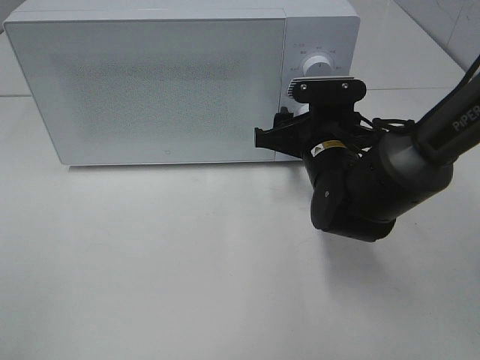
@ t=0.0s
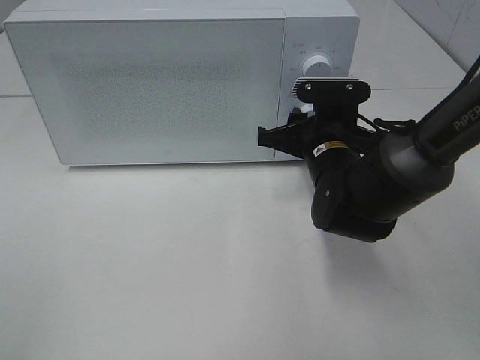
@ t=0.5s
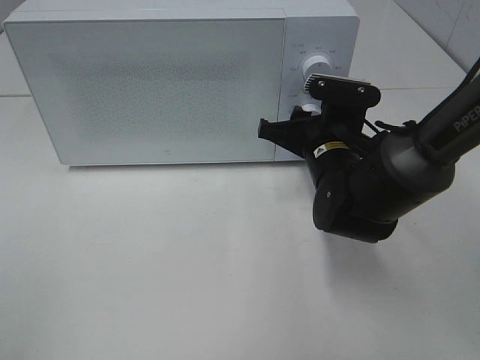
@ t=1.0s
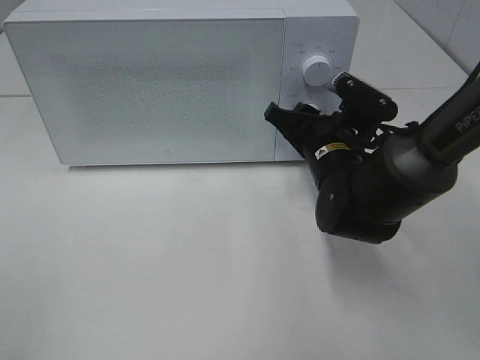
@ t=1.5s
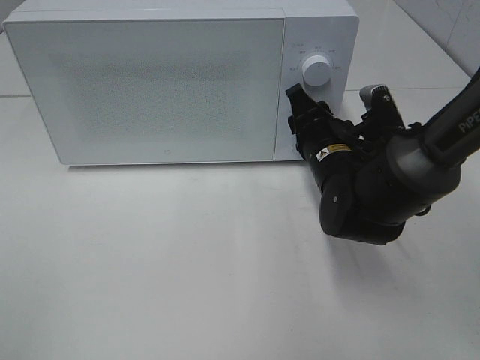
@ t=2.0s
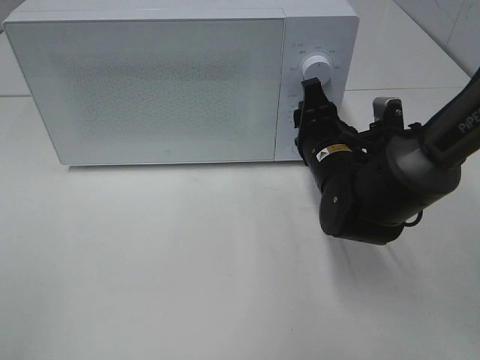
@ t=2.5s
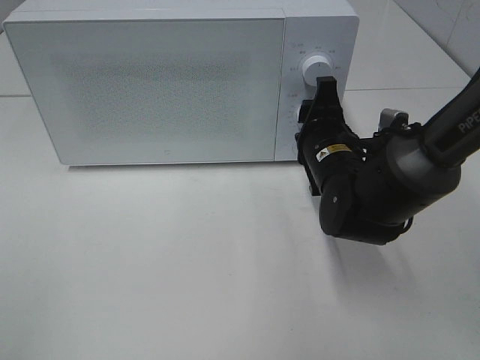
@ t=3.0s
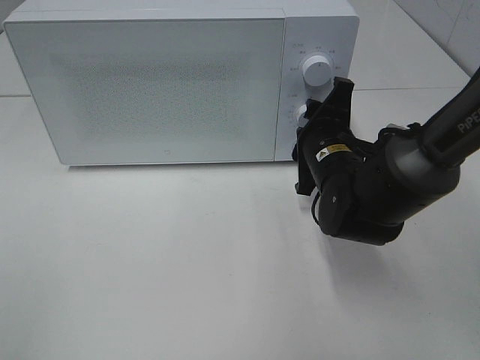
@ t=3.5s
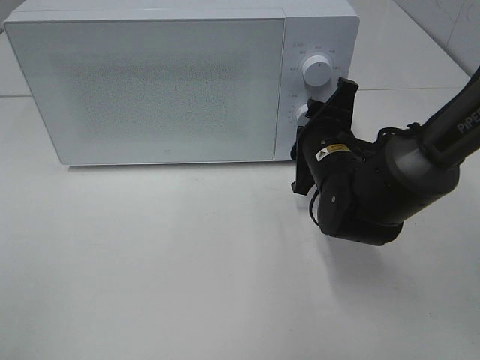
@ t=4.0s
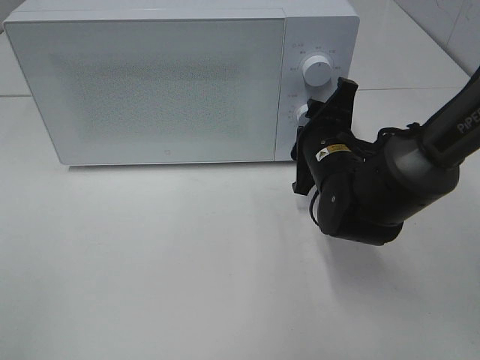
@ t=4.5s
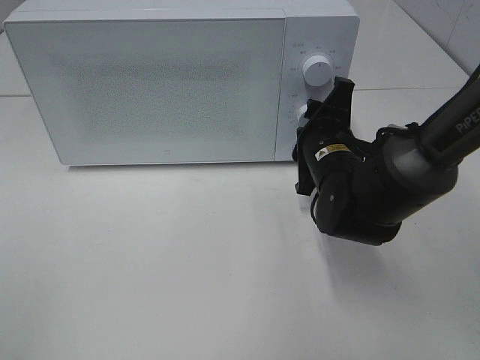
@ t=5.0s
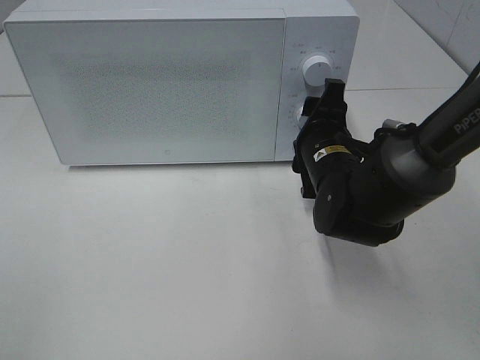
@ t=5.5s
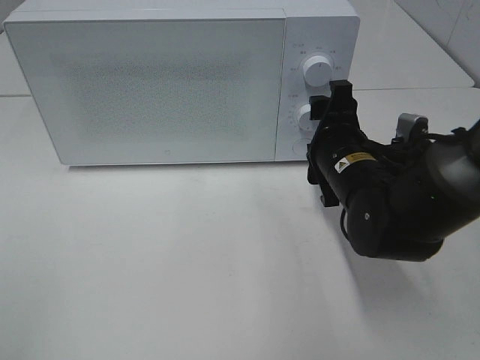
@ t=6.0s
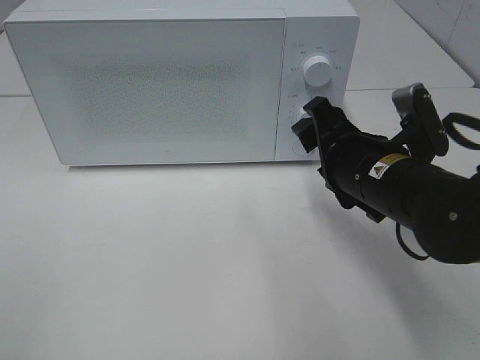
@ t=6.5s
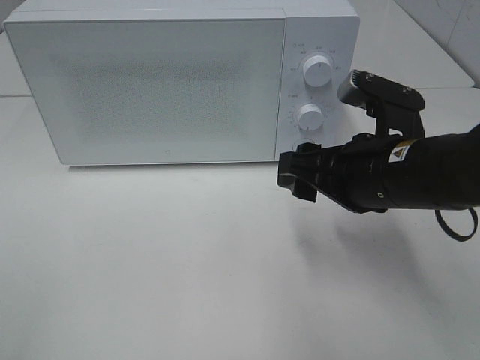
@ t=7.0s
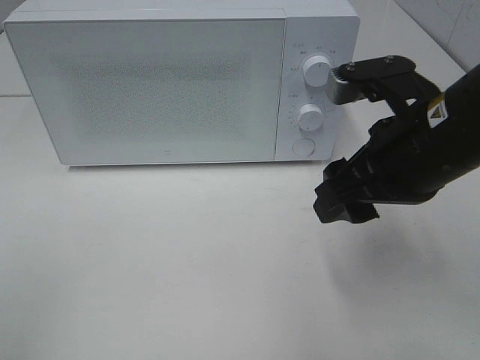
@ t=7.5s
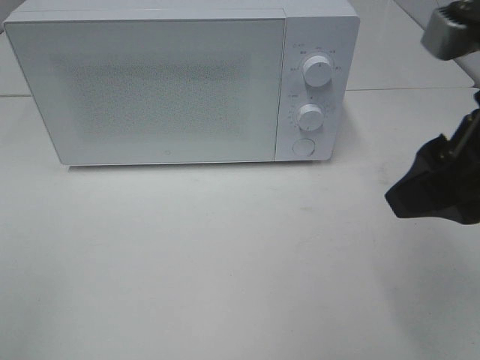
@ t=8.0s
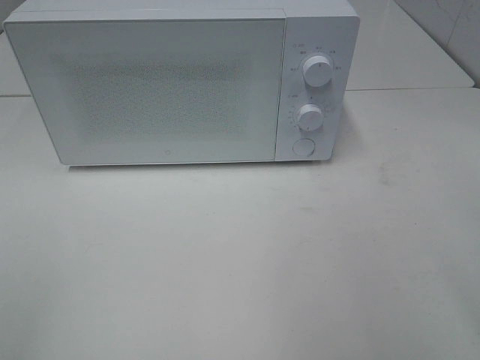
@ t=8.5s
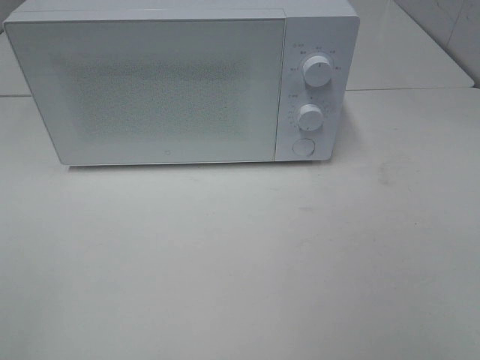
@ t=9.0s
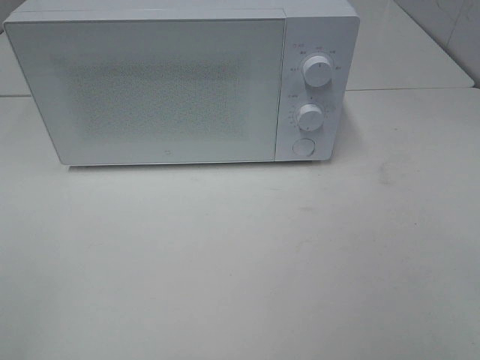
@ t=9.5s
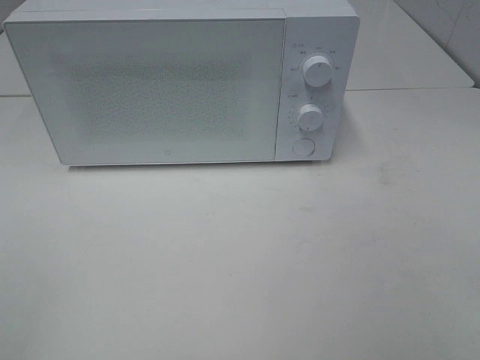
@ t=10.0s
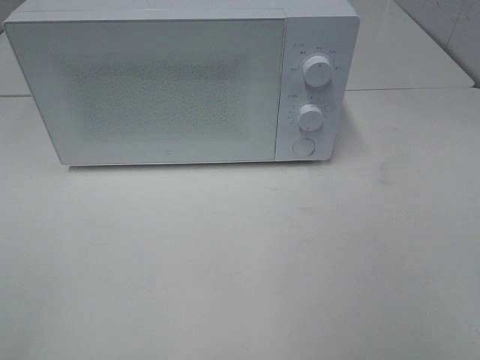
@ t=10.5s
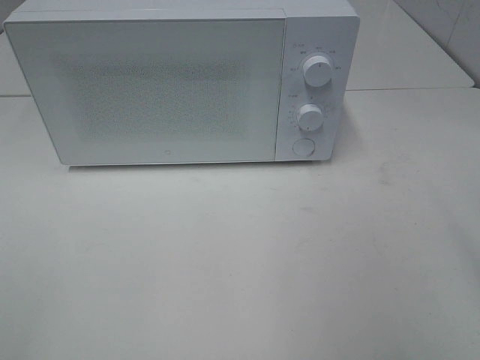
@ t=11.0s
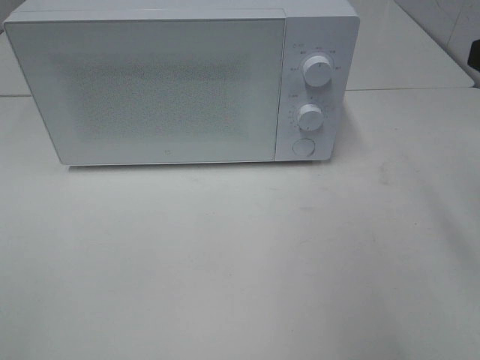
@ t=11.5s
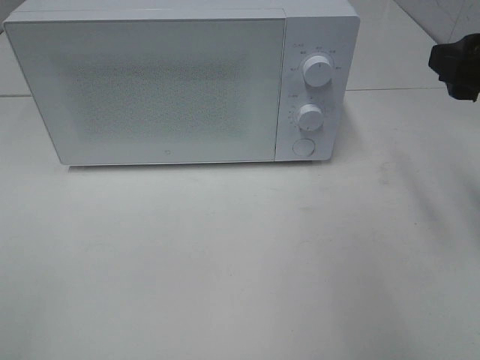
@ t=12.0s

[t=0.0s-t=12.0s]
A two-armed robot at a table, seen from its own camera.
Task of the whole recording: Heat the burger.
Step, t=0.0s to t=5.5s: Right hand: twist timer button.
t=6.0s to t=8.0s: The right gripper is displaced upward and backward by some 20 cm.
t=8.0s to t=10.0s: The right gripper heads backward and to the right, covering approximately 20 cm.
t=10.0s to t=12.0s: The right gripper goes roughly 20 cm forward.

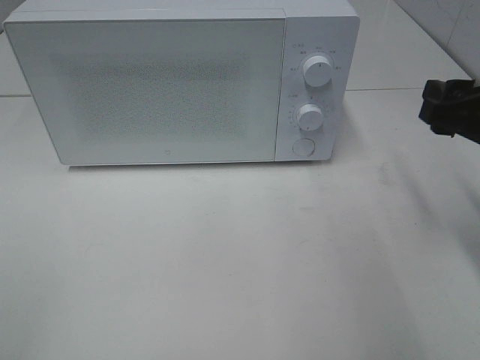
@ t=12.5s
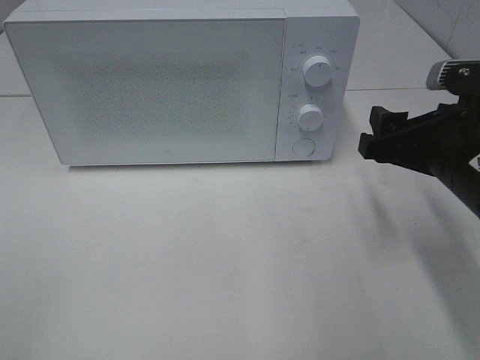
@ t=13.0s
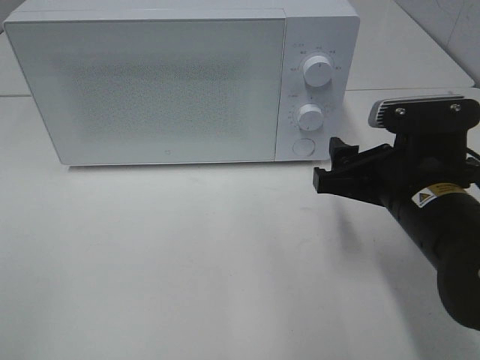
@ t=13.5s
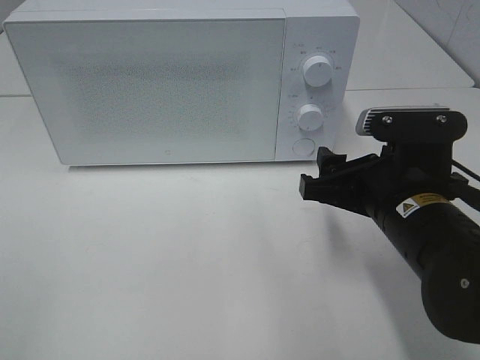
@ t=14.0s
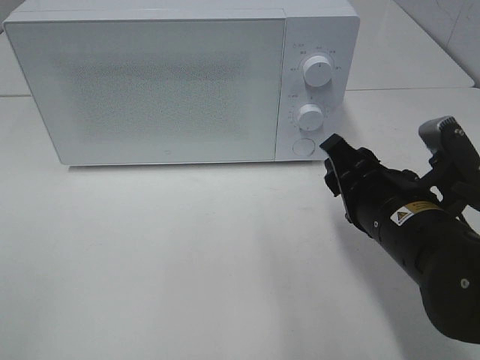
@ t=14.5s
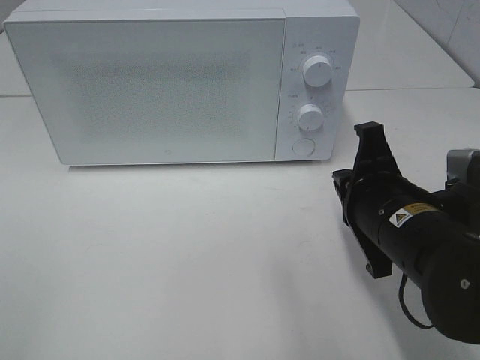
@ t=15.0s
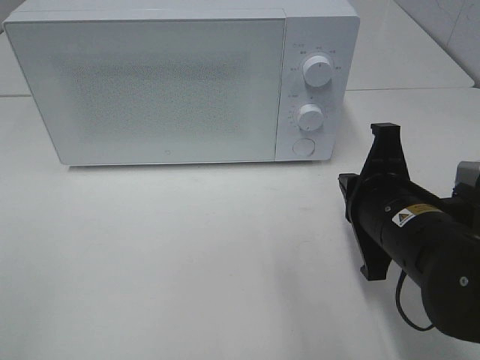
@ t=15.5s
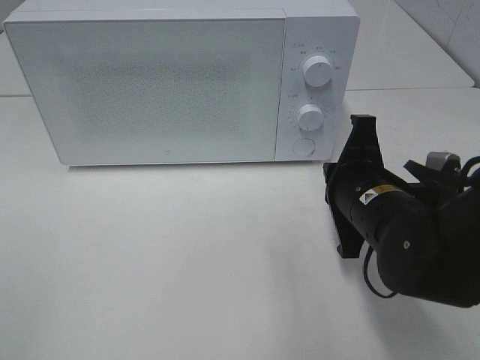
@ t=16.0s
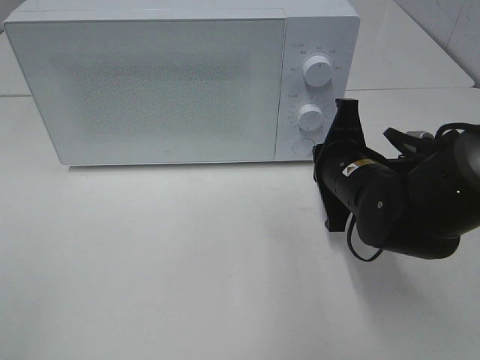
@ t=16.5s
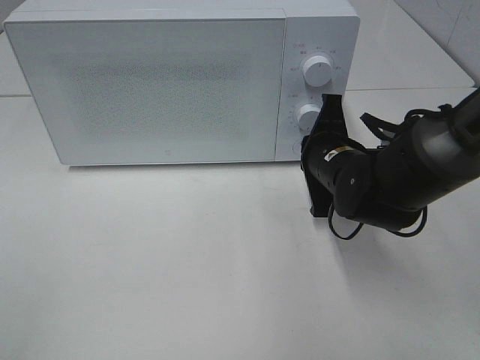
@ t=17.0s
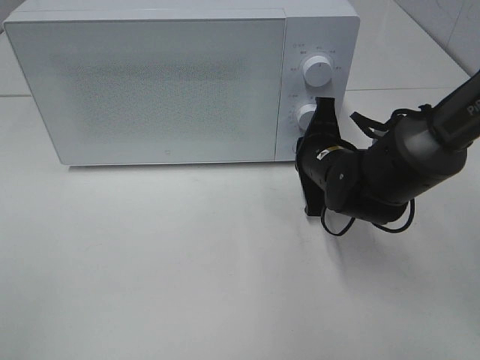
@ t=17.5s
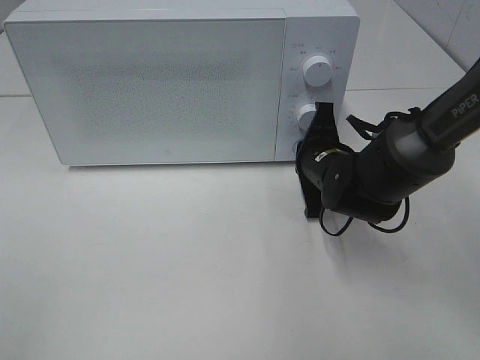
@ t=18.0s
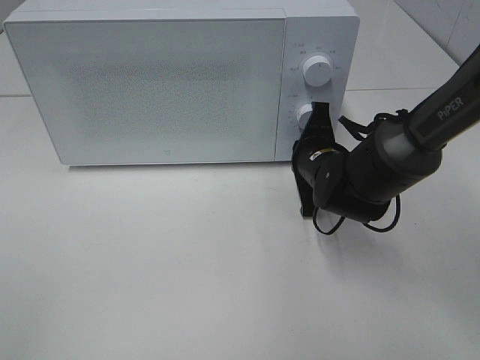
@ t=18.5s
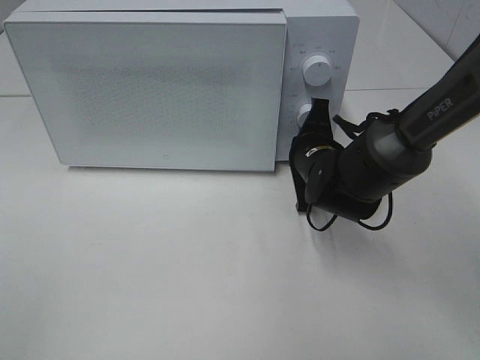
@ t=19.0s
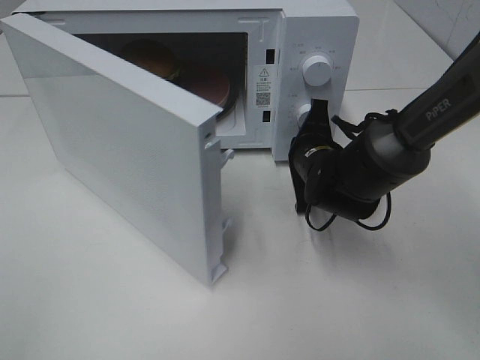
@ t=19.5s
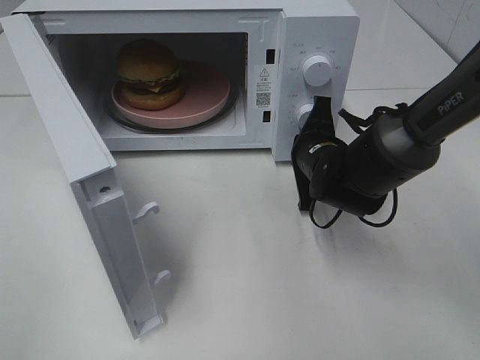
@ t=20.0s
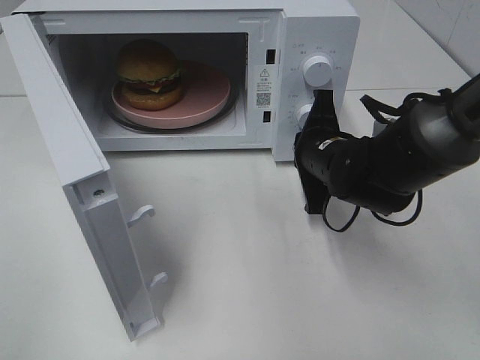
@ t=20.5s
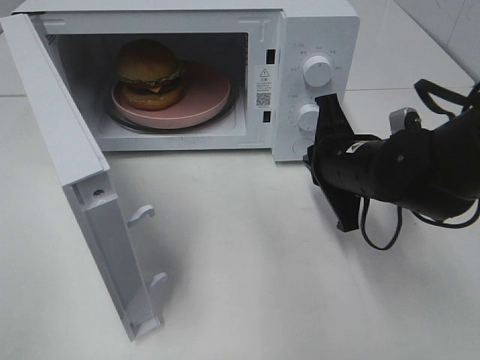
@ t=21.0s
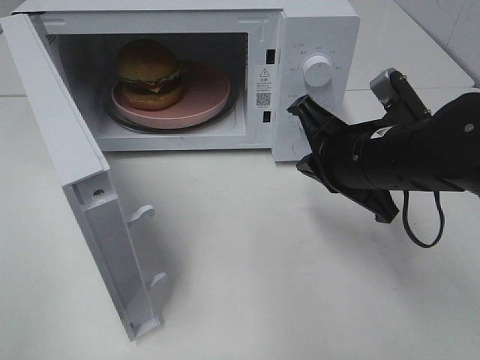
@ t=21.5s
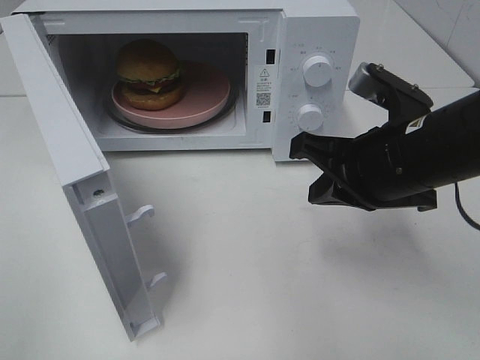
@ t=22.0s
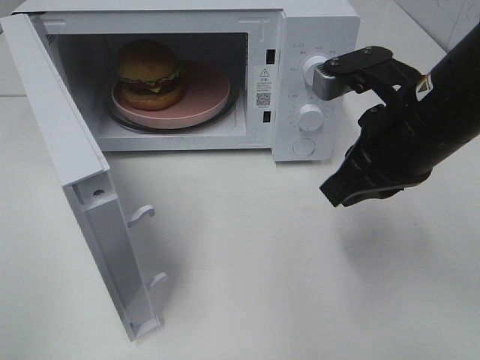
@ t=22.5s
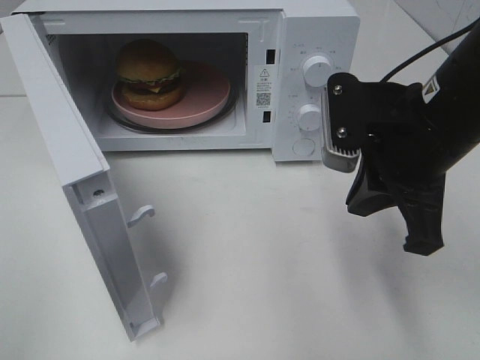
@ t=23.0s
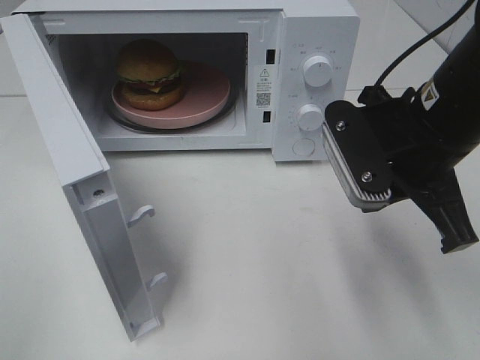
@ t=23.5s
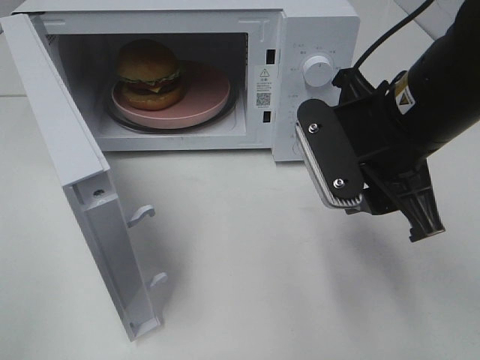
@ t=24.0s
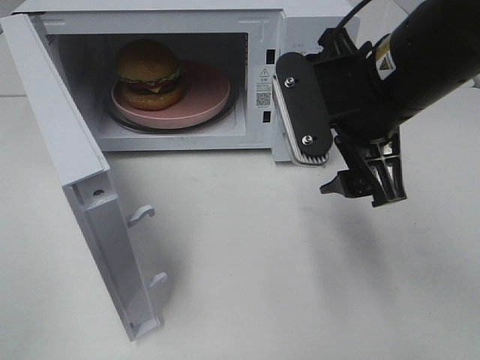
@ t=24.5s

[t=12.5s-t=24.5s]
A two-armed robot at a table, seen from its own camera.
Task of the whole recording: Heat the burger.
Step, t=12.5s to t=20.5s: Right hand: press the switch.
t=12.5s to t=14.5s: The right gripper travels to the left and downward by roughly 15 cm.
t=14.5s to t=16.5s: The right gripper travels forward by about 10 cm, and closes.
t=16.5s to t=18.5s: The right gripper travels forward by about 5 cm.
t=20.5s to t=22.5s: The right gripper shifts some 15 cm upward and backward.
t=22.5s to t=24.5s: The right gripper opens its fingers.

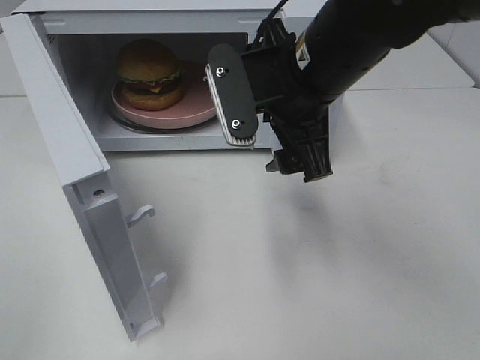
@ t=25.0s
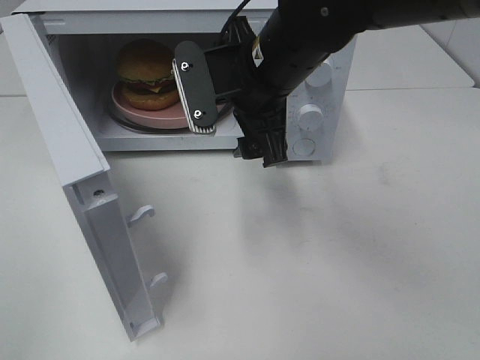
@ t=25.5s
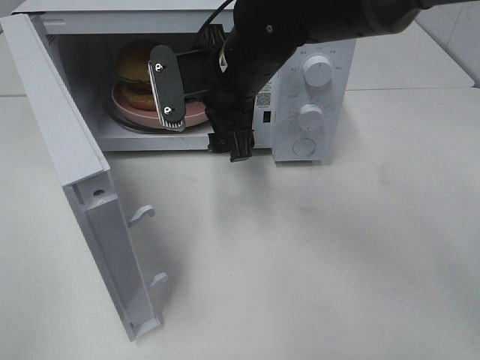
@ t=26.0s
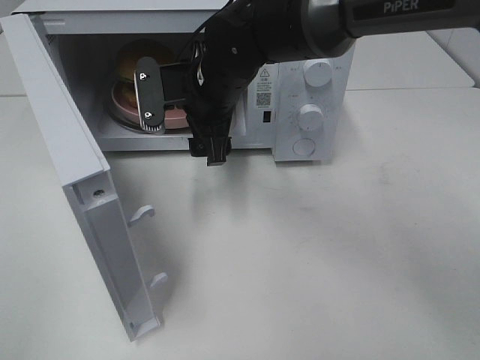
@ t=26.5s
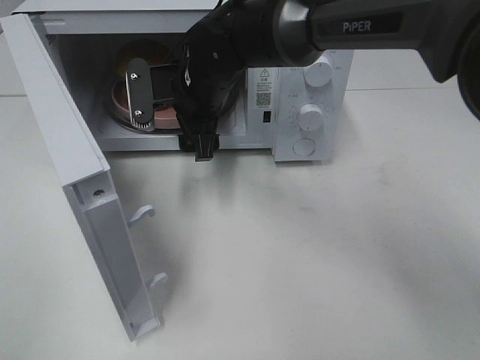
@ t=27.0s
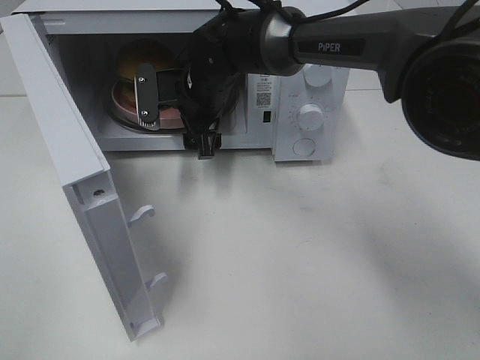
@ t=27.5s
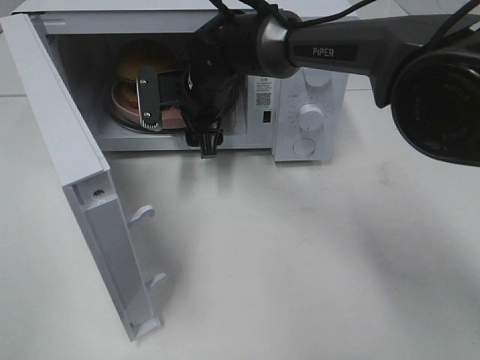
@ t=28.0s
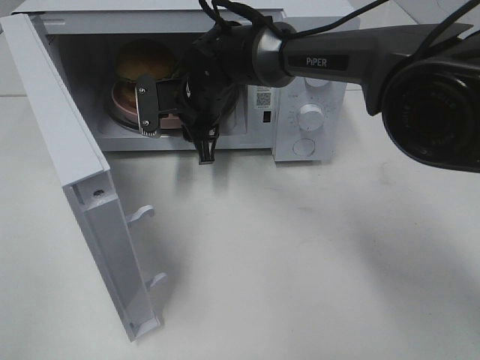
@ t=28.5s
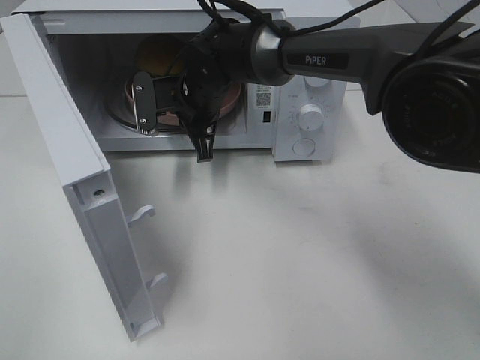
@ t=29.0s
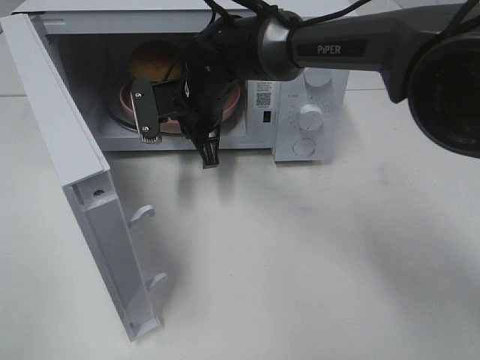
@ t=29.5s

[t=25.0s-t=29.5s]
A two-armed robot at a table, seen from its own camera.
Task of the whole recording: Heat the burger.
Step, t=25.0s to t=28.5s: Right hand: grab the plate with the hamburger.
t=25.0s to t=27.0s: The right gripper travels forward, to the left and downward by some 15 cm.
t=27.0s to t=29.5s: The right gripper closes up.
